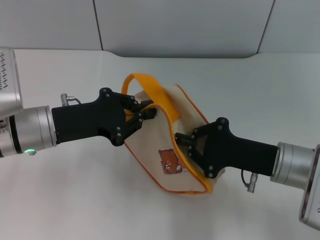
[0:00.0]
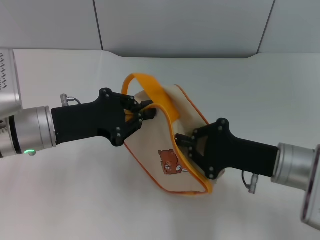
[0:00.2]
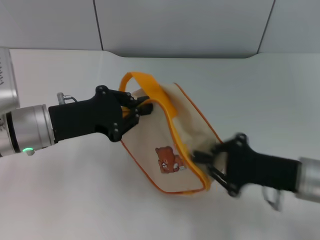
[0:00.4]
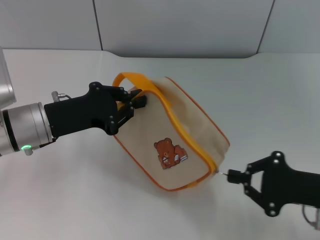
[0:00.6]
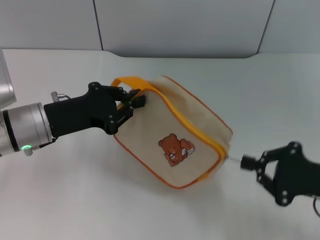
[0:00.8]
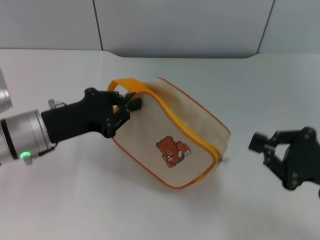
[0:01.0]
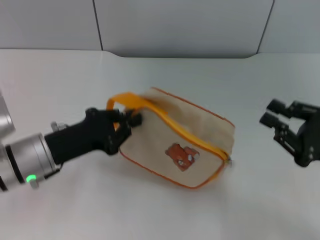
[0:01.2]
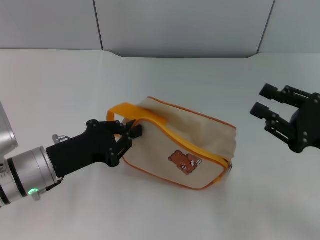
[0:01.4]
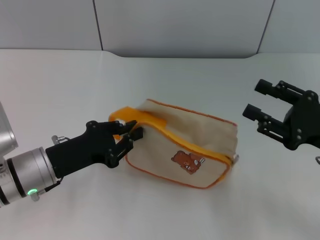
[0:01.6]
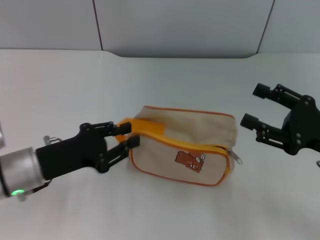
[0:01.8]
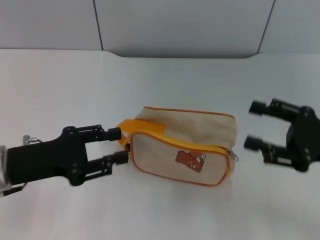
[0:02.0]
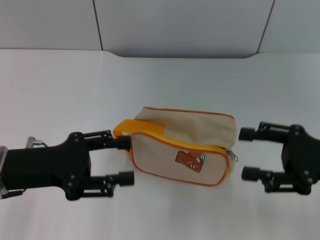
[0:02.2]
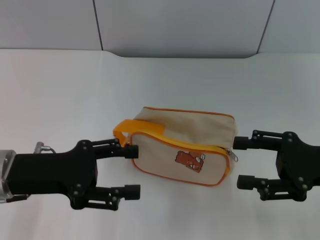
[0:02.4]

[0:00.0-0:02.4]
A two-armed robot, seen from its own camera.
Step, 0:01.2 to 0:01.8: Place the bag on the table with left gripper.
0:00.0 to 0:01.2: The left gripper shifts by roughly 5 cm. Meanwhile the right gripper travels to the right by about 10 cm.
0:01.2 to 0:02.4: The right gripper opens. Meanwhile the left gripper changes place by roughly 5 cm, and opens.

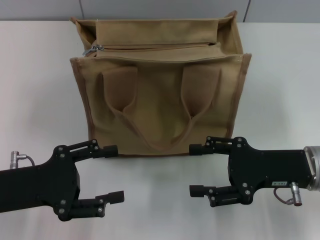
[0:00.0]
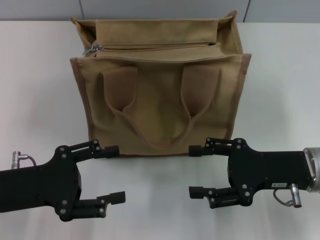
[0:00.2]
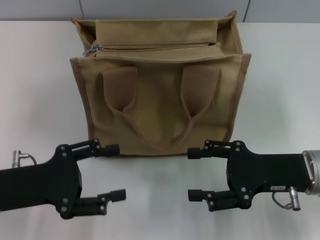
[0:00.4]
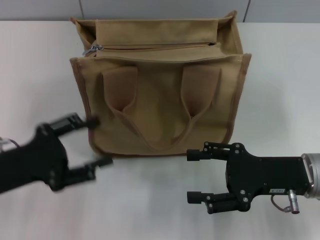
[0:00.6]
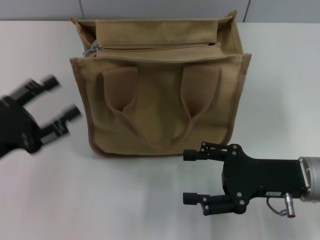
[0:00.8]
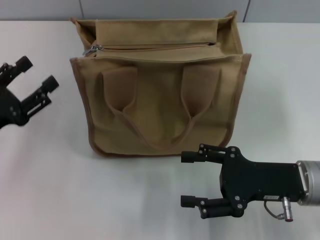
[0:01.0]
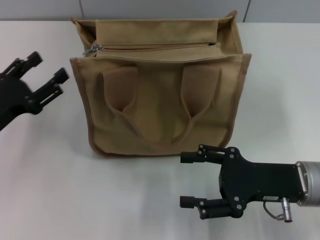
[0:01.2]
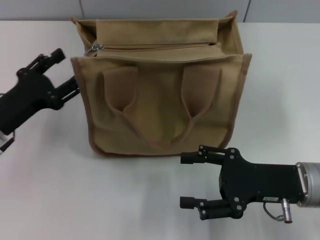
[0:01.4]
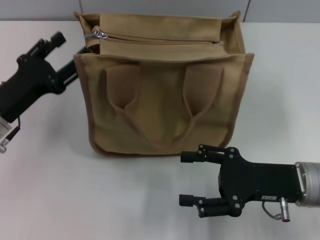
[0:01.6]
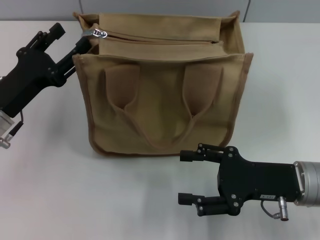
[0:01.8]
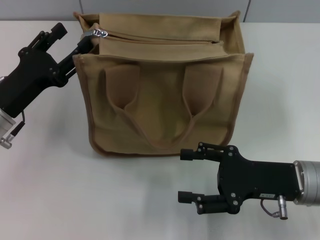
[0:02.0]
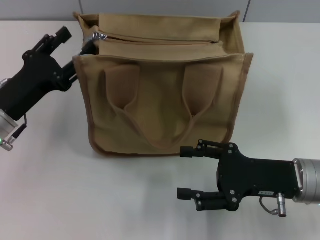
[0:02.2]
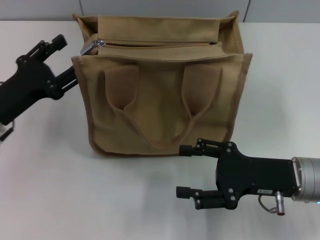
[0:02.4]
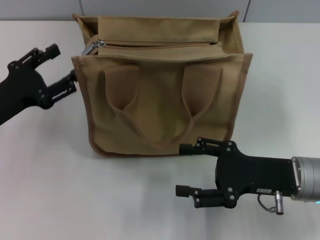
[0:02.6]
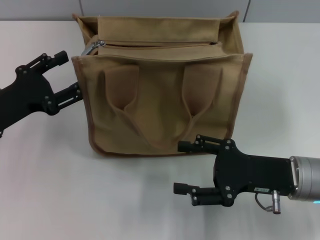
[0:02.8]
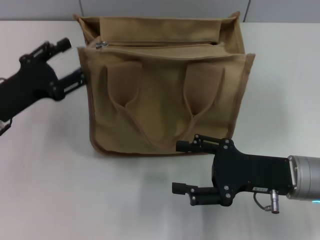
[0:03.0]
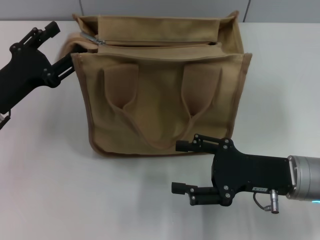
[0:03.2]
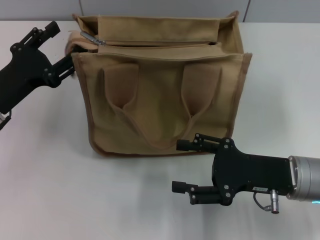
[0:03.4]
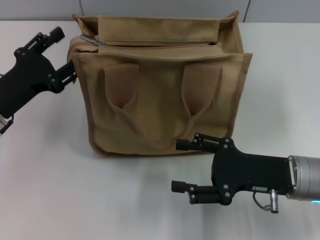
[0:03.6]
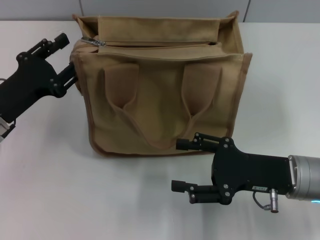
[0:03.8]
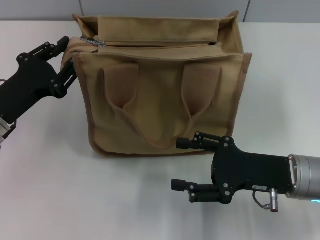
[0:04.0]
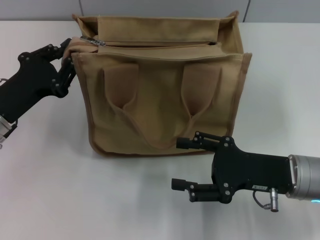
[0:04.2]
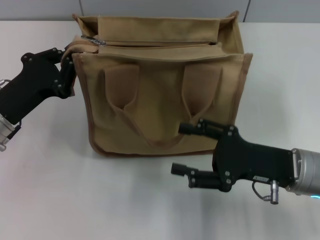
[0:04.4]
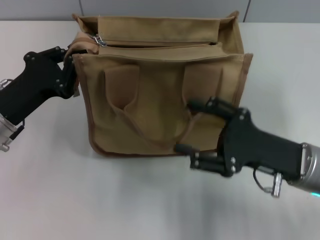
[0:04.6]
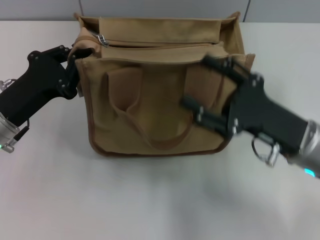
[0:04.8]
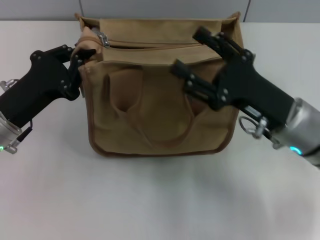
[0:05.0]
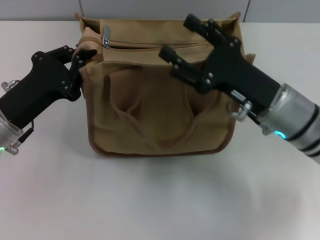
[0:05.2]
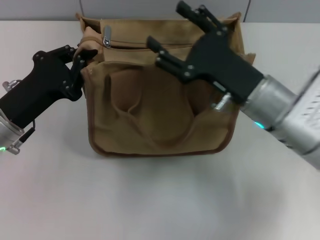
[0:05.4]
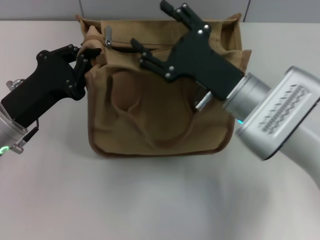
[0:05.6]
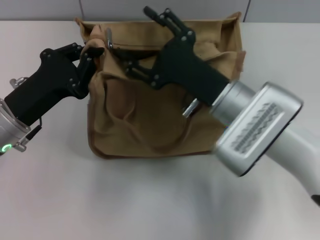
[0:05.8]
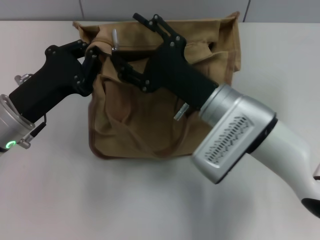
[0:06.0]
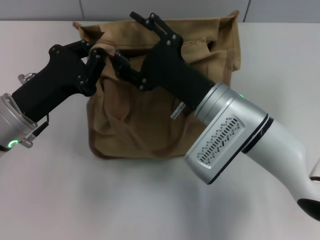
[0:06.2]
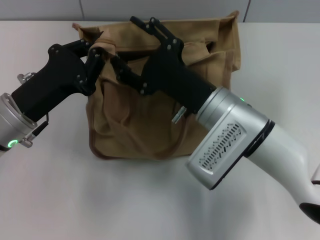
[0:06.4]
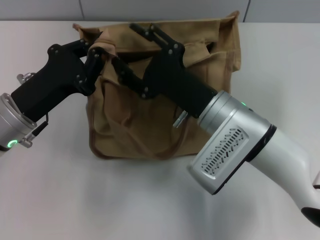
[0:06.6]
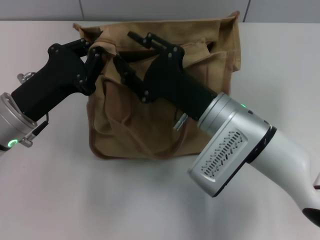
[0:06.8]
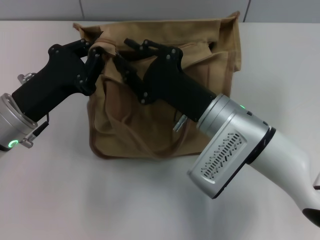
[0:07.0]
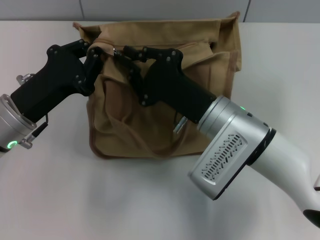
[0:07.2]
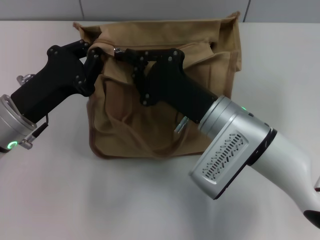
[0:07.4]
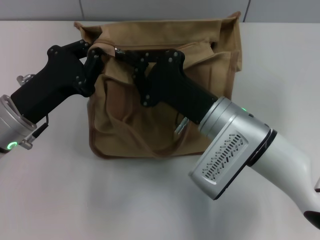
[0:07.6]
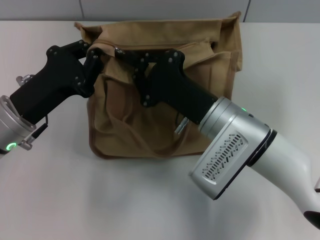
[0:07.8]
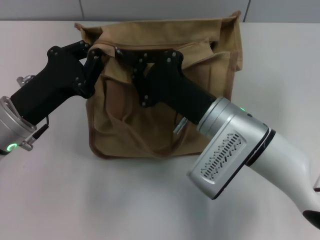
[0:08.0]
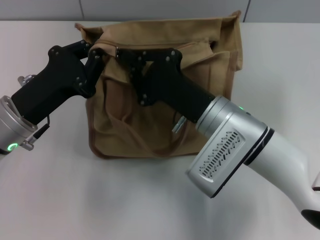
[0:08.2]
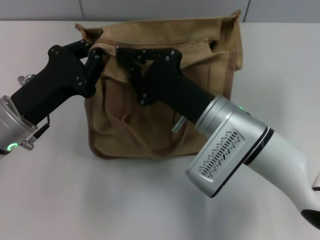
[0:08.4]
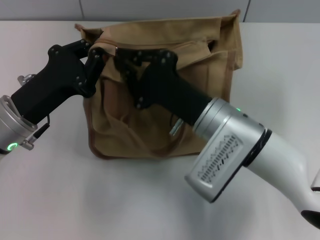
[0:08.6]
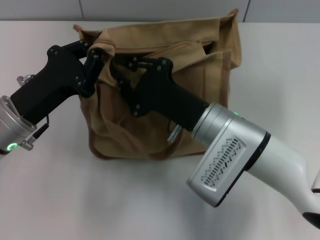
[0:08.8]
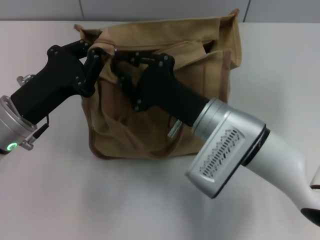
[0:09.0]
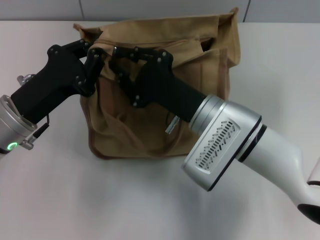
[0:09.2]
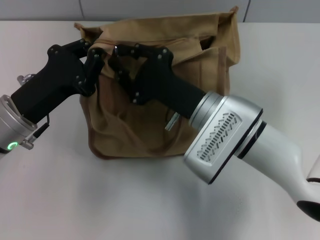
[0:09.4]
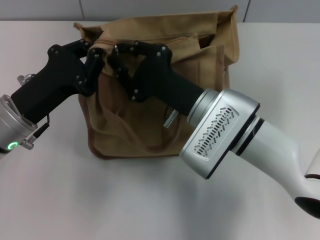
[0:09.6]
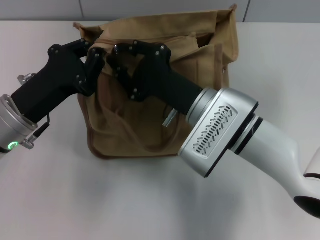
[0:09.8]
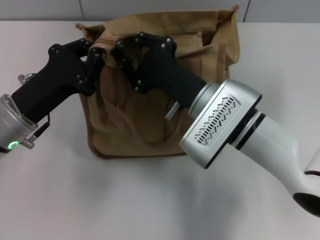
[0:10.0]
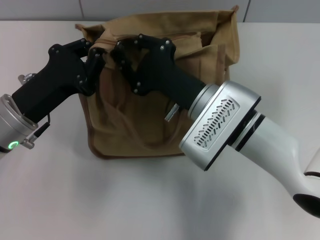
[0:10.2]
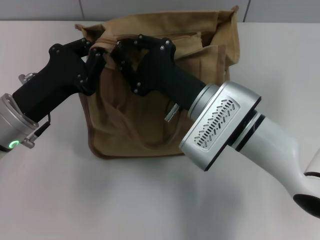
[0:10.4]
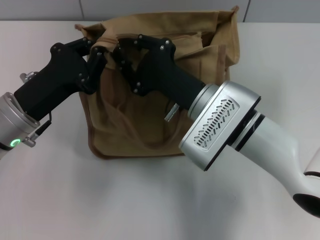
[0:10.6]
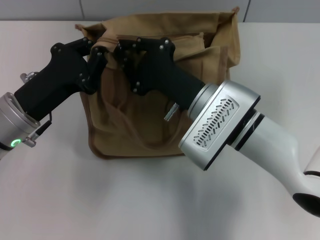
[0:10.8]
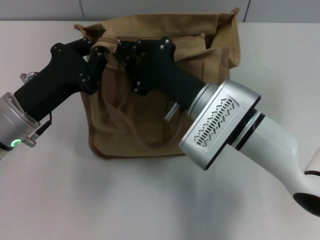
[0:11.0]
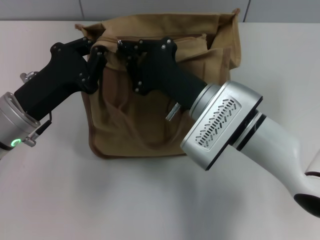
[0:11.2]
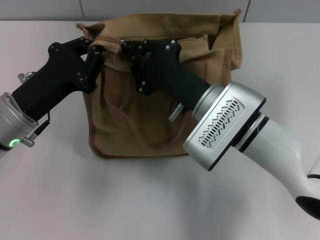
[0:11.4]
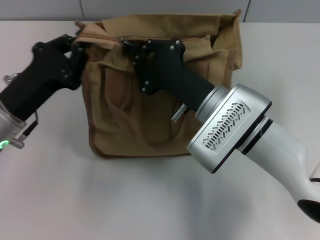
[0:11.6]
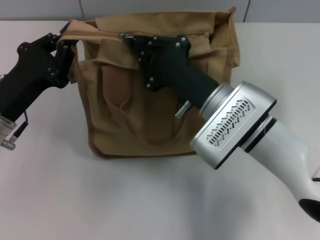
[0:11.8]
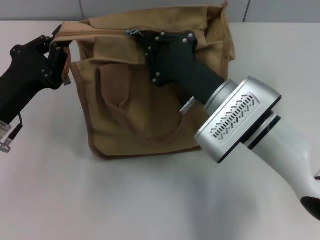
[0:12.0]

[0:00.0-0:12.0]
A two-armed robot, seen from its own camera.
0:00.0 to 0:01.6: The left gripper is displaced forward by about 5 cm.
0:01.6 to 0:03.0: The grippers stay close to where they were, moving slightly.
0:03.0 to 0:04.4: The left gripper closes up.
0:04.4 to 0:06.0: The right gripper is displaced to the left and forward by roughly 15 cm.
0:06.0 to 0:07.6: The right gripper closes up.
0:07.6 to 0:10.4: The grippers make only small movements.
0:10.4 to 0:12.0: The right gripper closes its fingers.

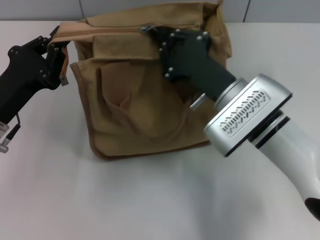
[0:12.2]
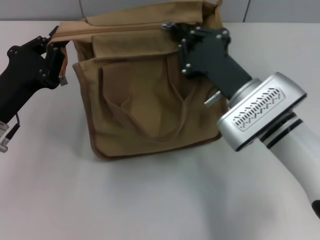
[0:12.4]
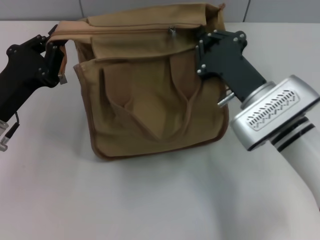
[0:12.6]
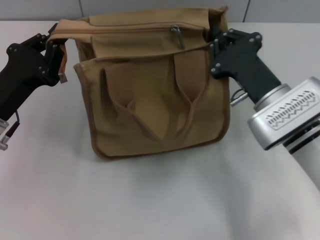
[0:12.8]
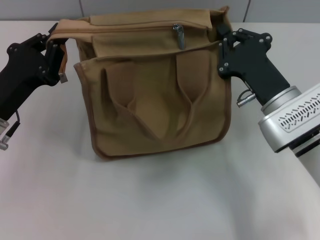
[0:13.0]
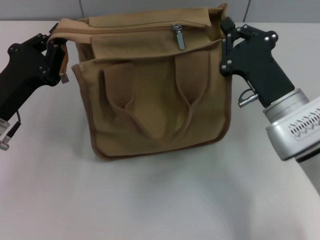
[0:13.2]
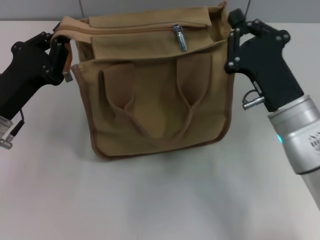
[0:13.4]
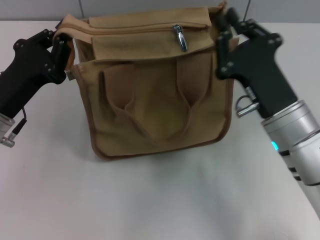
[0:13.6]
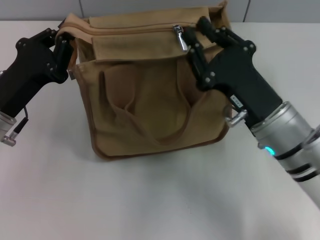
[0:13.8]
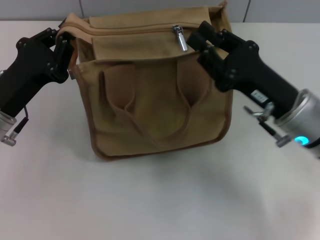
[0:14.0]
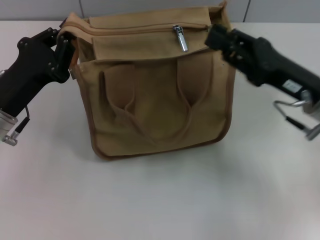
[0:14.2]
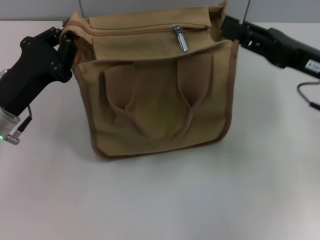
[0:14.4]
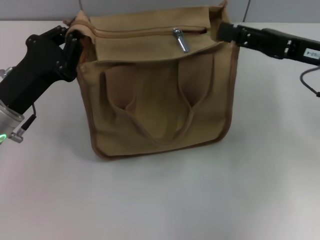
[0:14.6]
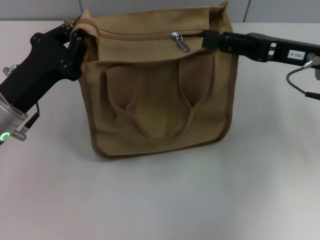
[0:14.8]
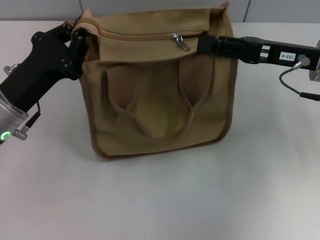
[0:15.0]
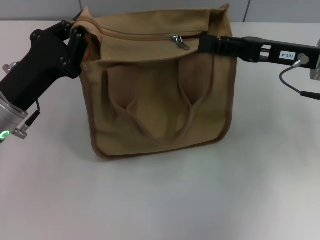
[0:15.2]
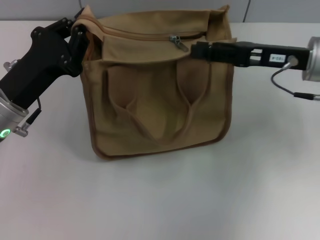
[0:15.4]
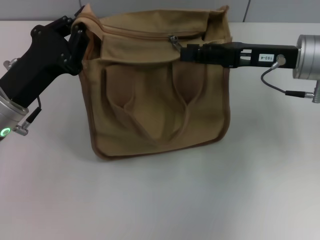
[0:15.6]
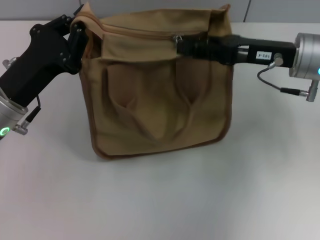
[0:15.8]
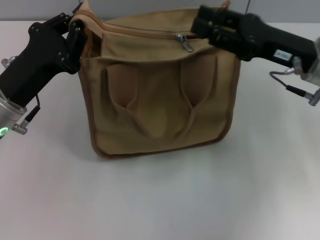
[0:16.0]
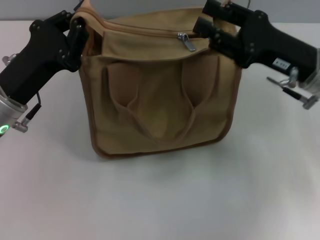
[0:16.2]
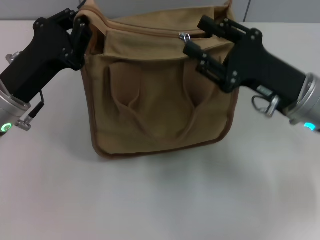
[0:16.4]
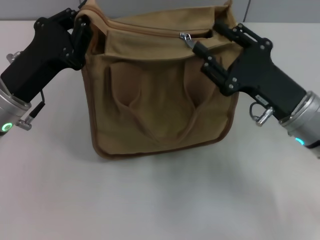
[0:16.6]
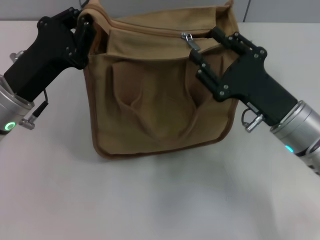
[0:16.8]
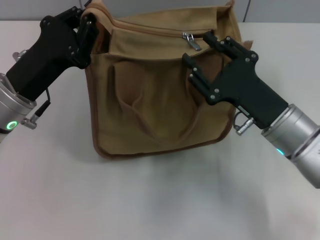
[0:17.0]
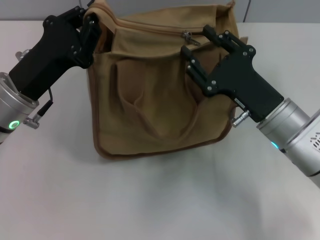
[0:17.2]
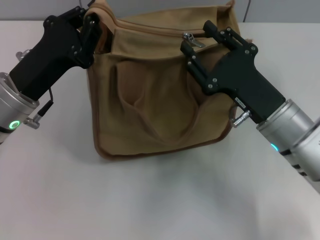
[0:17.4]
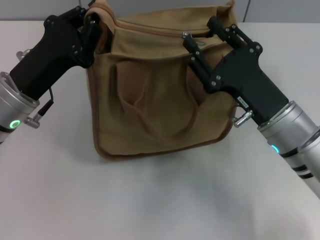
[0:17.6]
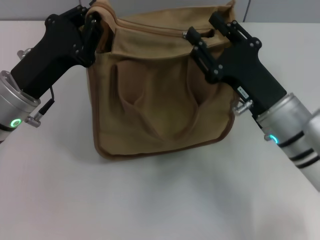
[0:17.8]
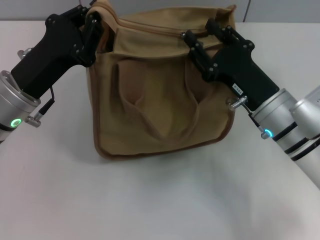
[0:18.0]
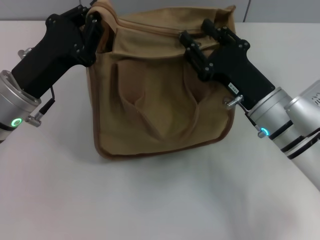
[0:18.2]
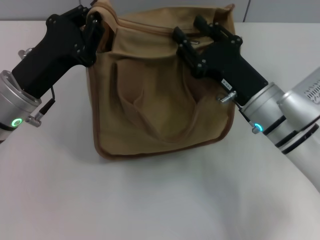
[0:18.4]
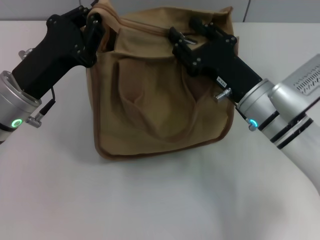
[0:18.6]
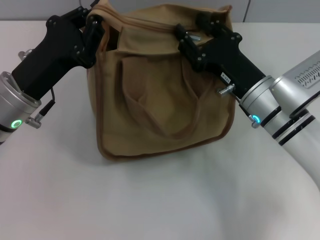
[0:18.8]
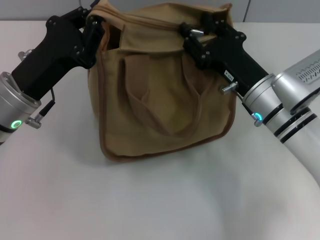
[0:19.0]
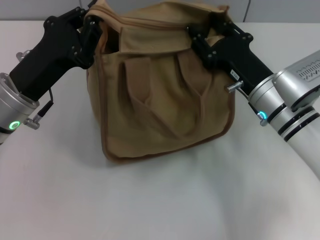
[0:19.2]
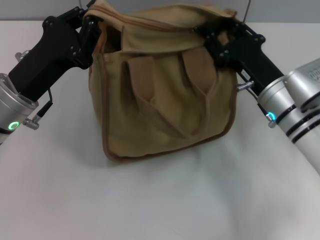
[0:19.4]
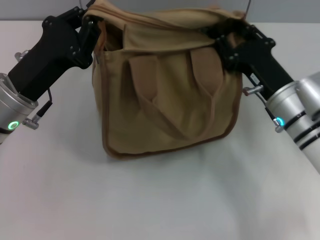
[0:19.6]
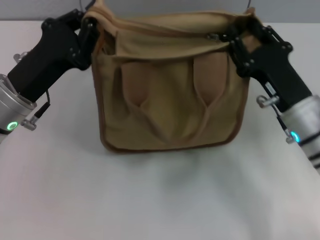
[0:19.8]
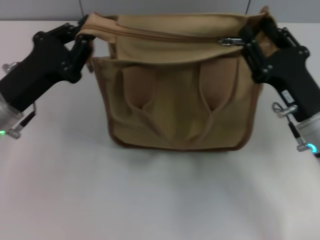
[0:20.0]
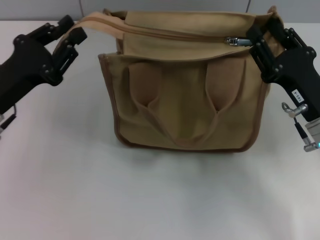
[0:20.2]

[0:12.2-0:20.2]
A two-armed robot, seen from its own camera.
Step, 0:12.2 to 0:19.8: Pull up the zipper with your right hand.
0:12.2 to 0:13.8: The right gripper changes place by some 5 cm.
0:13.8 to 0:15.4: The right gripper heads forward, to the right and upward, covering some 15 cm, and opens up.
0:15.4 to 0:17.0: The right gripper is displaced backward, downward and to the left by roughly 15 cm.
0:17.0 to 0:18.6: The grippers move only a little.
0:18.6 to 0:20.2: The left gripper is displaced to the left by approximately 5 cm. Meanwhile the right gripper is displaced to the right by some 10 cm.
